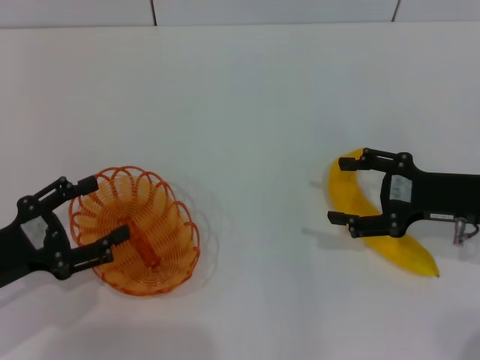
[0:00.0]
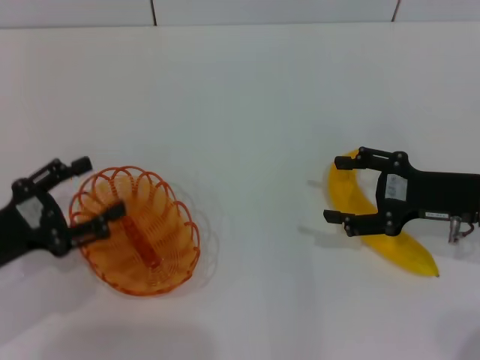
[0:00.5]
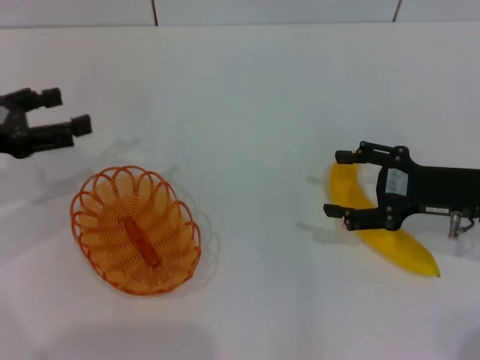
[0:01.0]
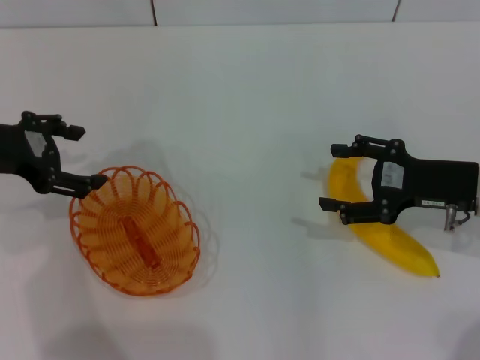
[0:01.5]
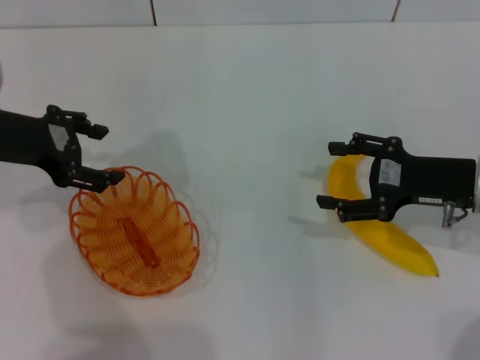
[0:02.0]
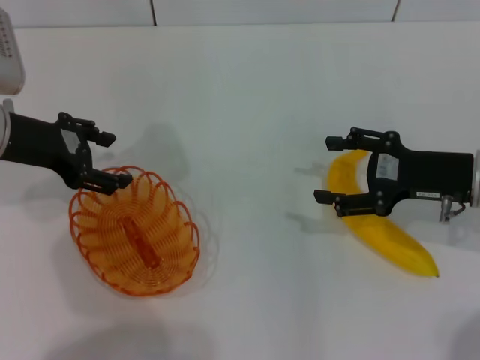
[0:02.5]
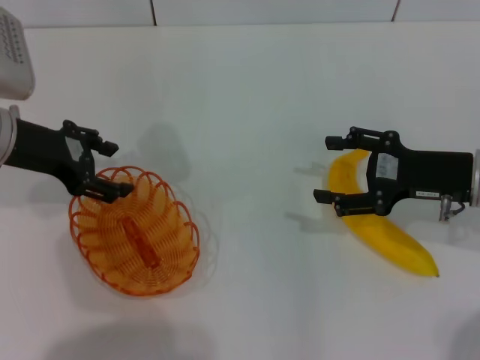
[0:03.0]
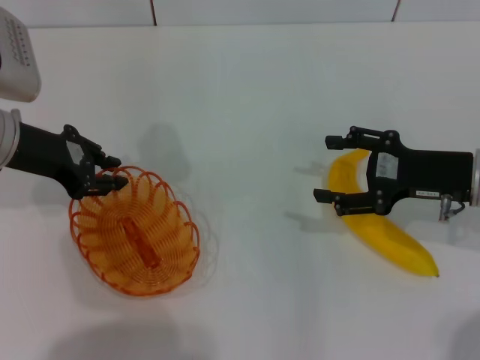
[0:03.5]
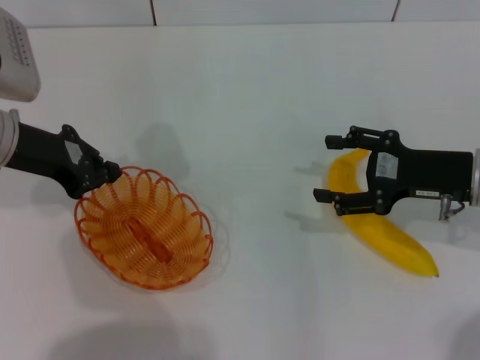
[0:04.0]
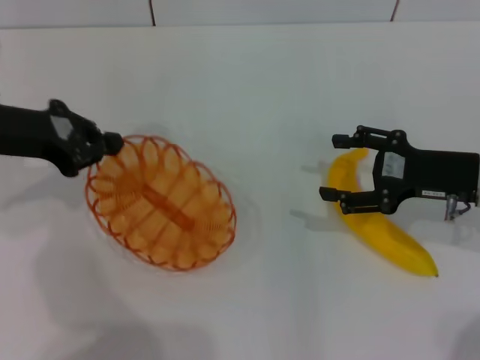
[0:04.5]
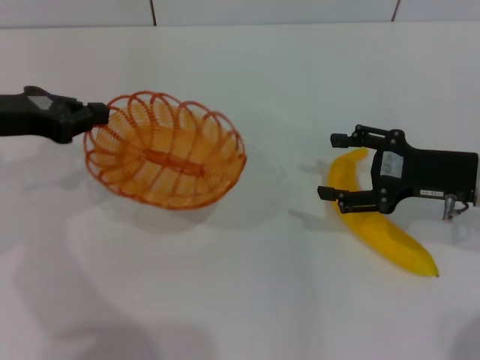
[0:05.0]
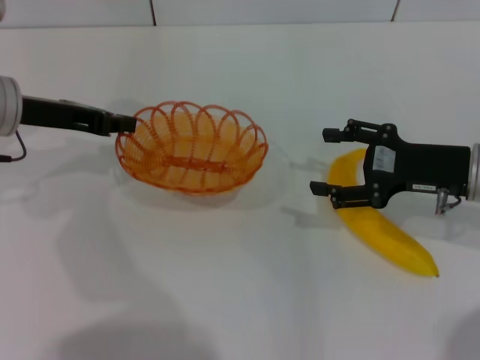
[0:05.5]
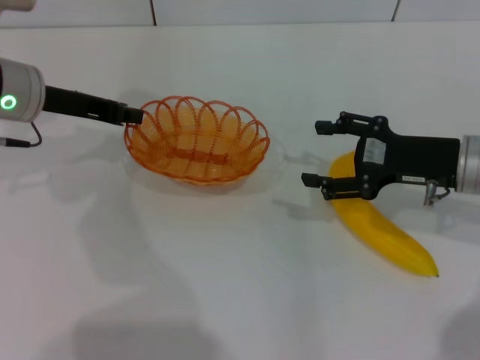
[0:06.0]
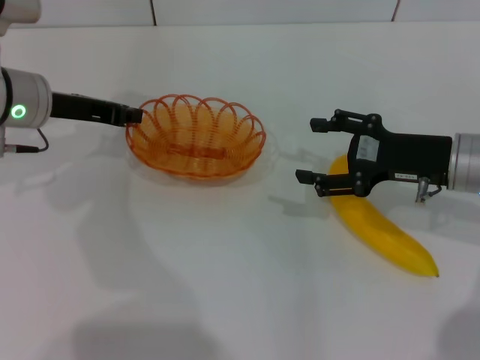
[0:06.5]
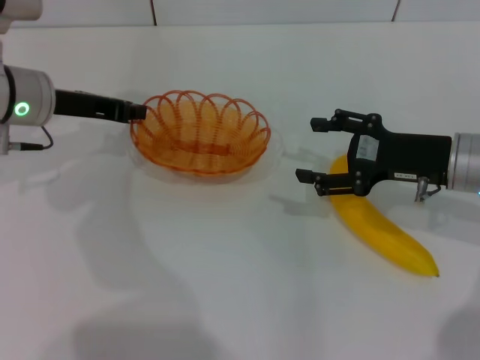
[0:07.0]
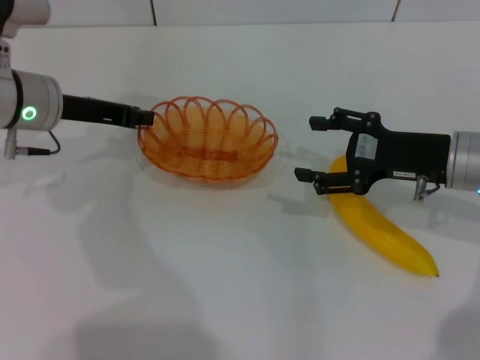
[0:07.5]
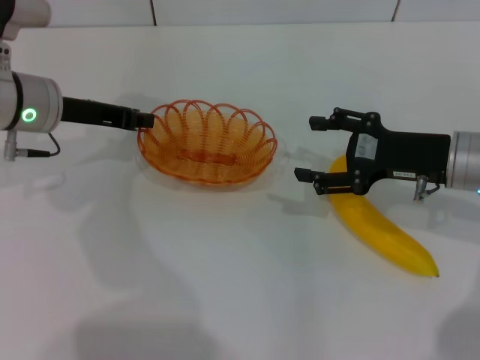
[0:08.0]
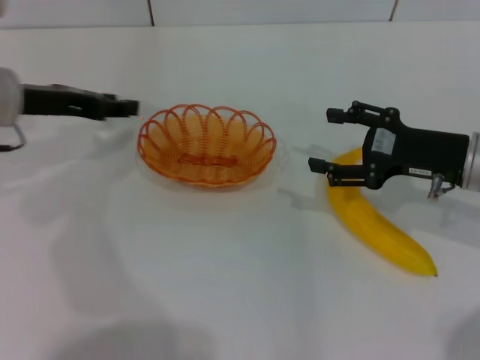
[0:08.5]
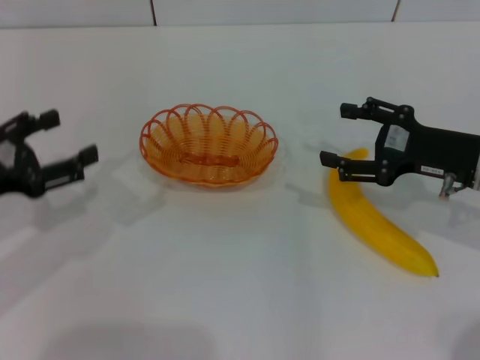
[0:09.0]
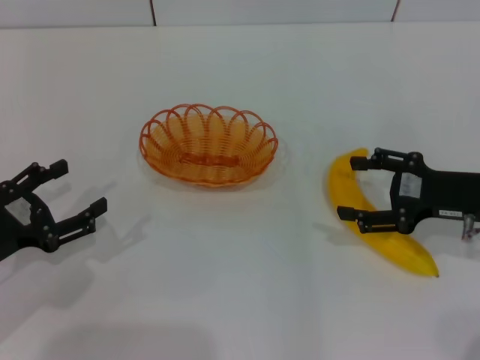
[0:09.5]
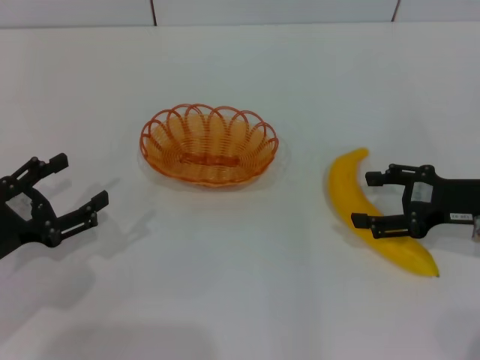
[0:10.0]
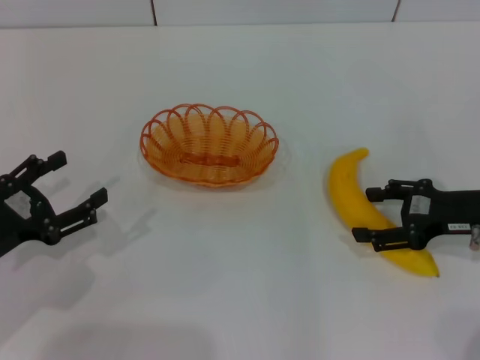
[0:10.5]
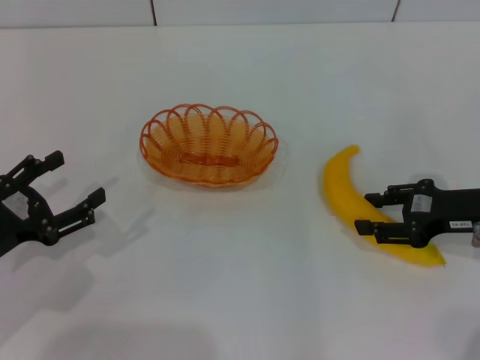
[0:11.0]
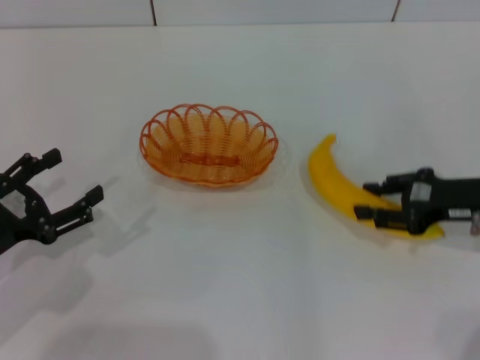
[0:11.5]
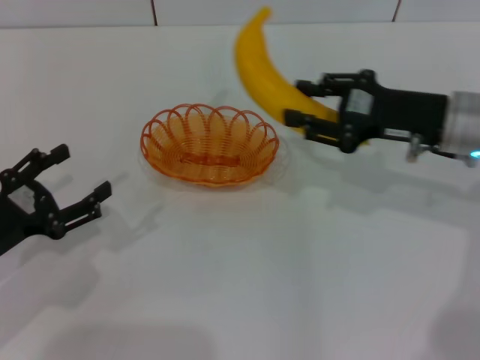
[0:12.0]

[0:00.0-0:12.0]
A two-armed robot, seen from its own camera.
Step, 0:00.0 to 0:04.0: Pick up the basket with the left gripper.
Step, 0:05.0 to 0:08.5: Place the basket in the center of view with the left gripper.
Step, 0:09.0 to 0:11.0: Pick up the banana with the right gripper.
0:00.0 to 0:02.0: The left gripper goes roughly 15 cm forward and upward.
0:02.0 to 0:04.0: The left gripper closes up.
0:06.0 to 0:08.0: The grippers stay close to where they were, moving slightly.
0:08.0 to 0:10.0: The right gripper goes roughly 5 cm to the right; the left gripper is displaced backward, to the left and downward by approximately 20 cm, and opens its fingers.
0:10.0 to 0:12.0: The right gripper travels to the left and forward by some 10 cm, and closes.

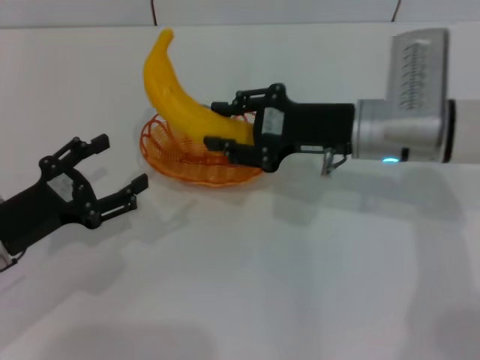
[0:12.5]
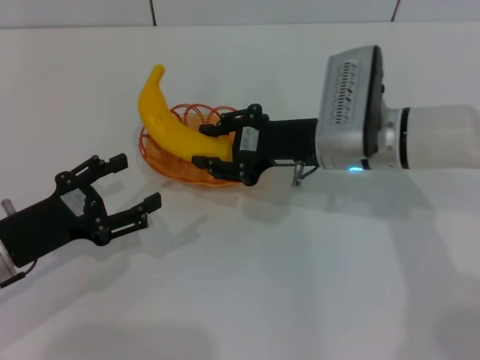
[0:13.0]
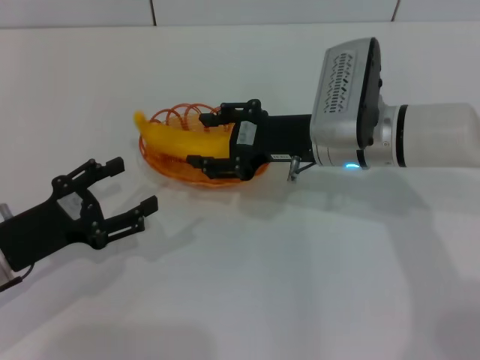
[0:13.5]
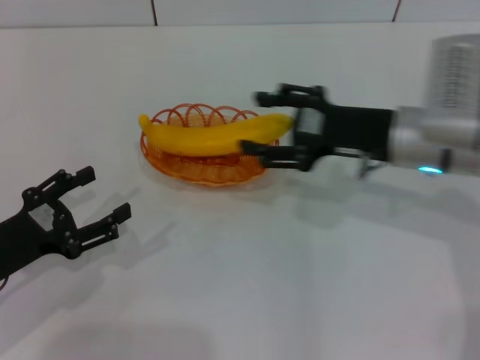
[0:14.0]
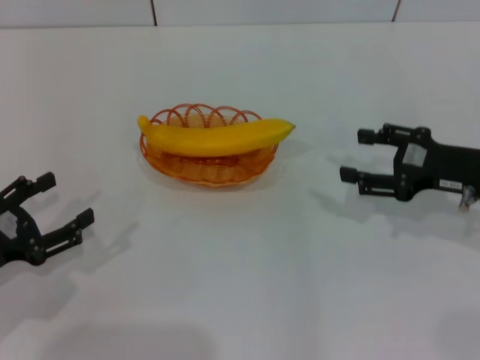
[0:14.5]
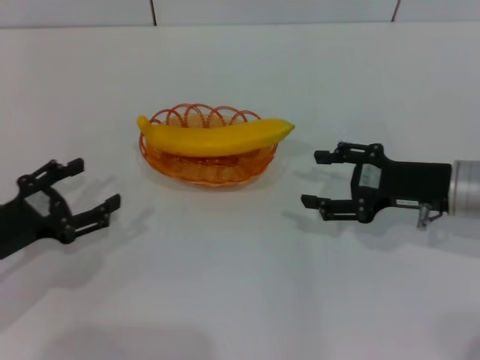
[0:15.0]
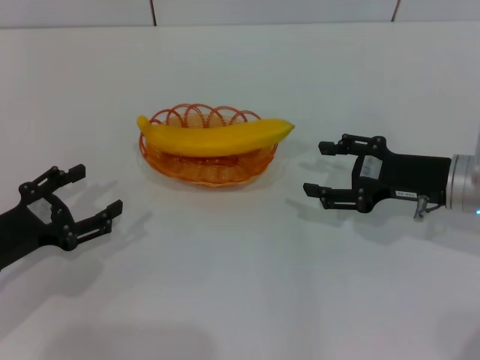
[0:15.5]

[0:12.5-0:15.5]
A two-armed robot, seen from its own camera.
0:12.5 to 0:14.0: The right gripper opens.
0:14.0 to 0:15.5: The right gripper travels to the right by about 5 cm.
